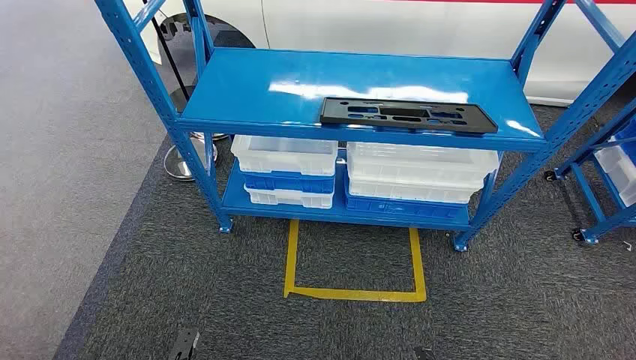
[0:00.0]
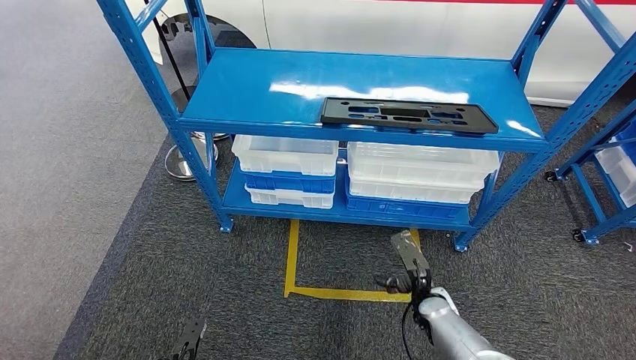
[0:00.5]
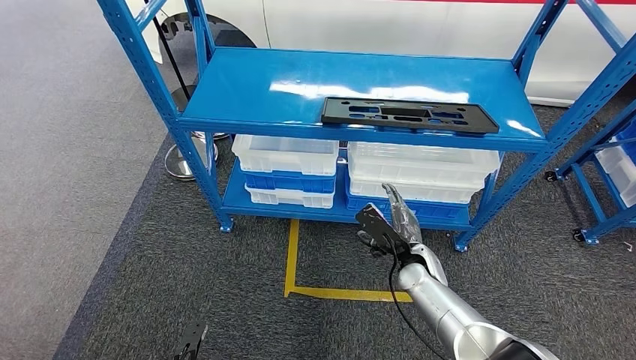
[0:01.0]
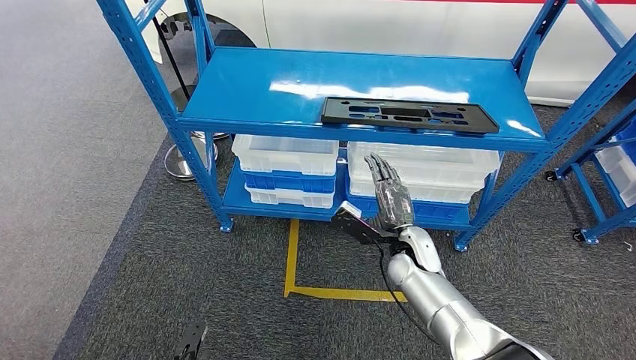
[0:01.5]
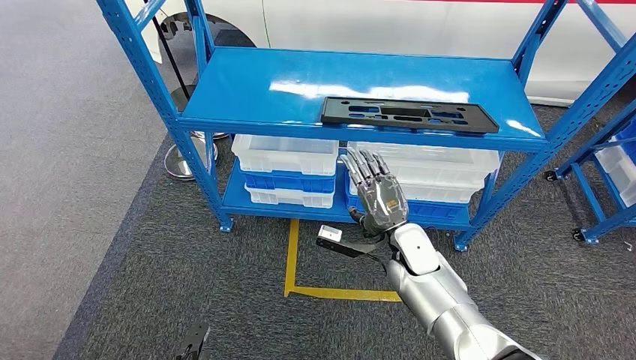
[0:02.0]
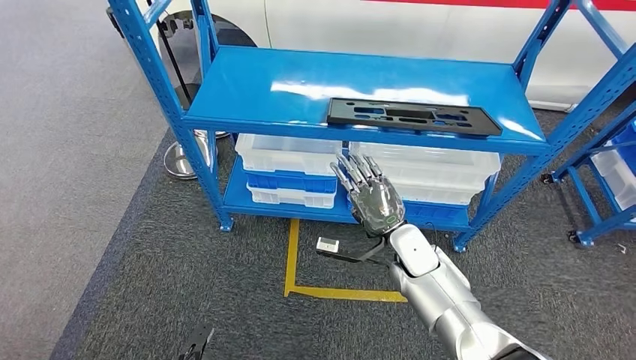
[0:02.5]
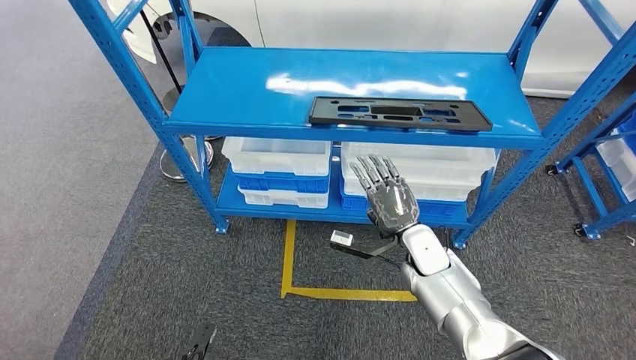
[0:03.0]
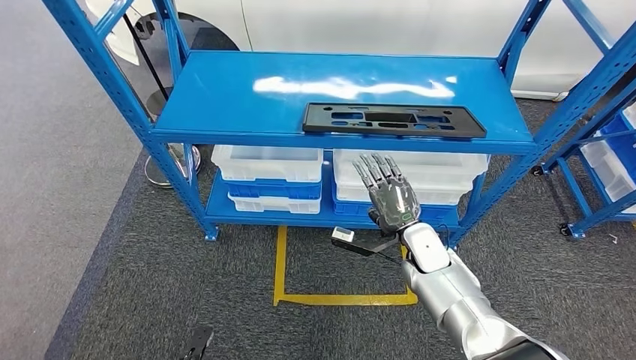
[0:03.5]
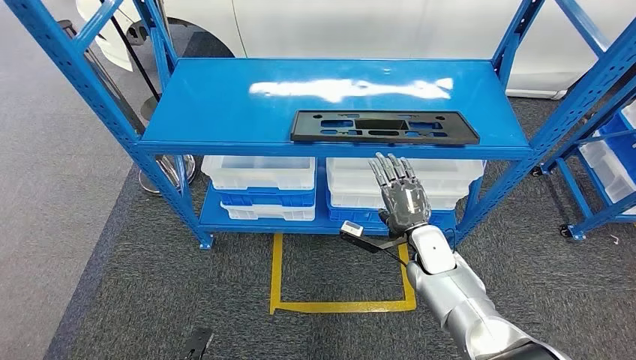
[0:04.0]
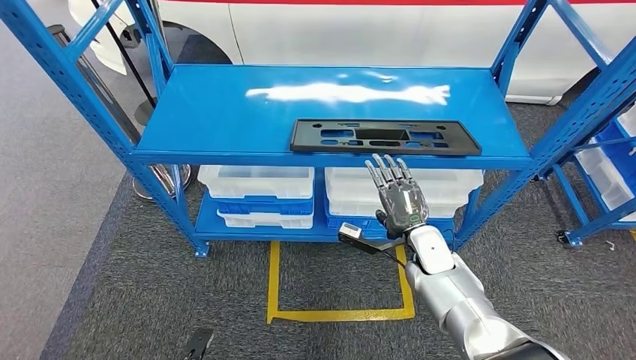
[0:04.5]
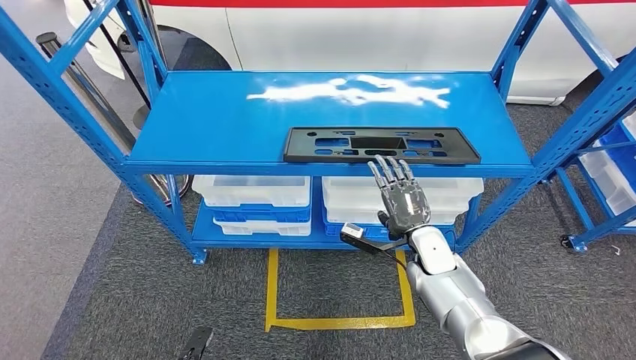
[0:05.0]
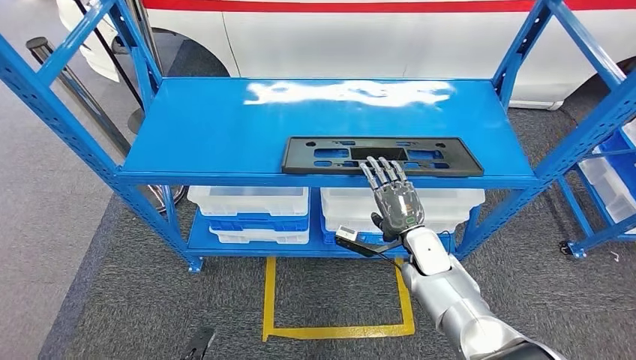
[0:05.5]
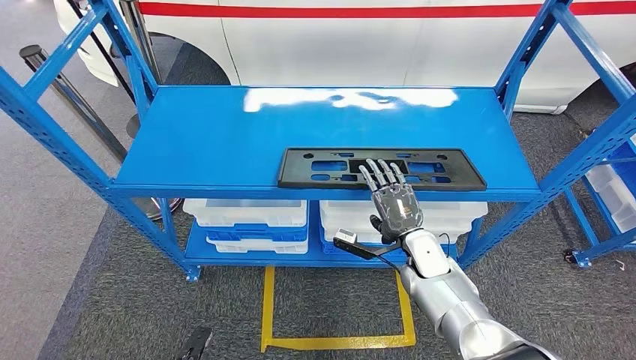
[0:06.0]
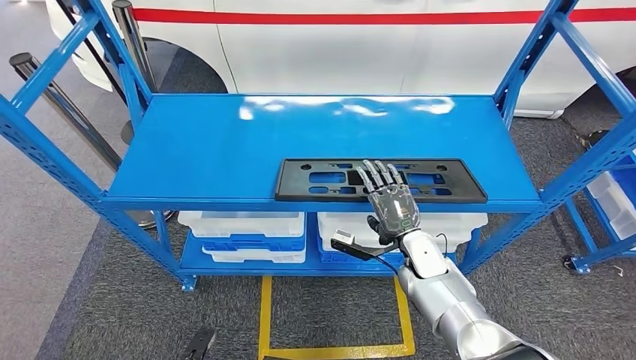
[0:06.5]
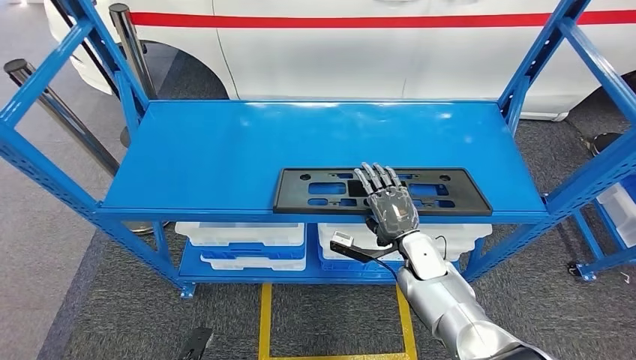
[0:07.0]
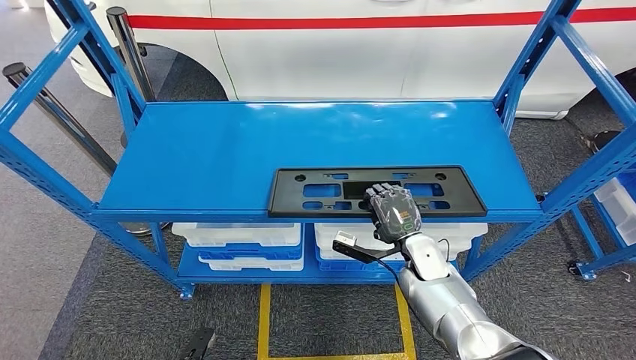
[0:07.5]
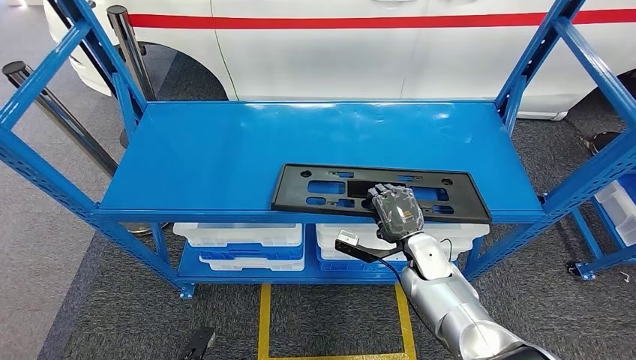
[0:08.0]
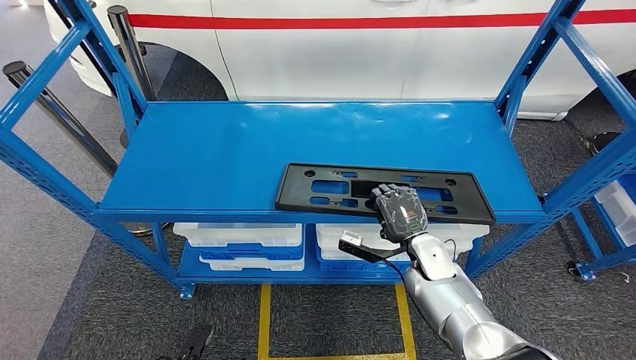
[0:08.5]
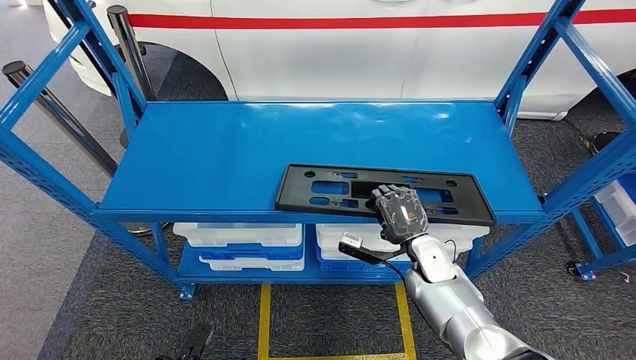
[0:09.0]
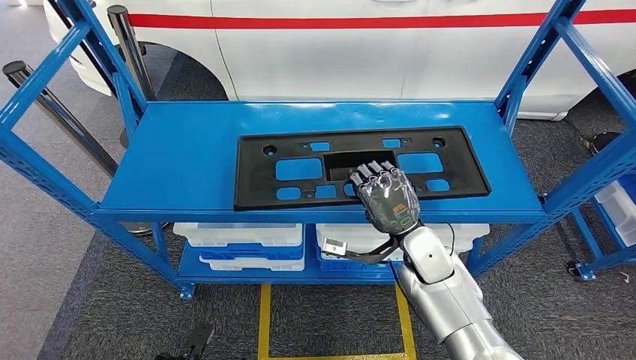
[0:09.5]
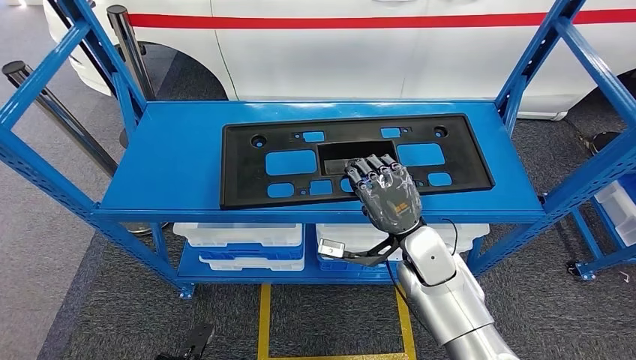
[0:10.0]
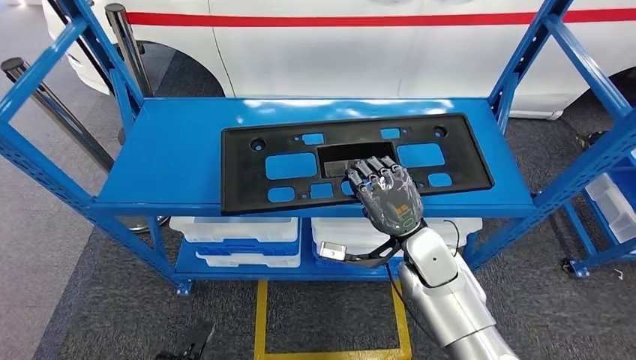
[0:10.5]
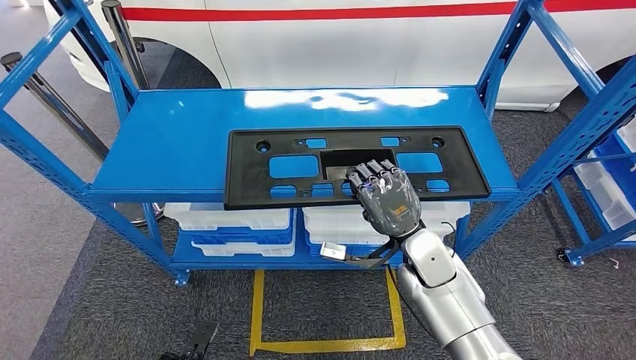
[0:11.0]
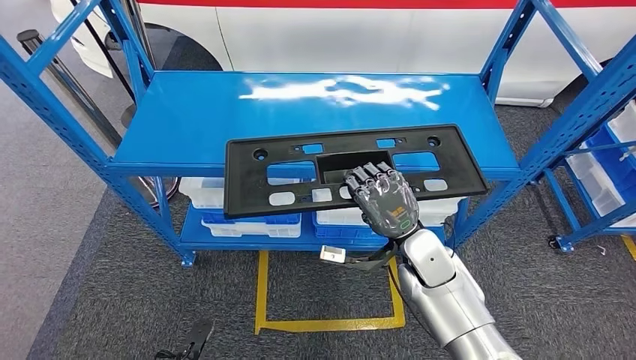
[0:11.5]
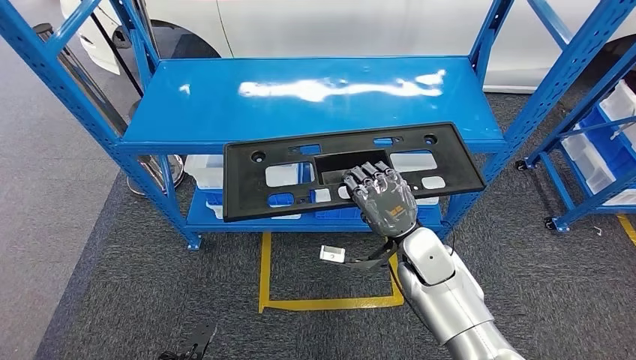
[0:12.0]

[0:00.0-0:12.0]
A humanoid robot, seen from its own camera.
Step, 0:00.0 to 0:11.0: Pick up the large material from the shelf.
0:08.0 to 0:10.0: The right hand is displaced upward by approximately 10 cm.

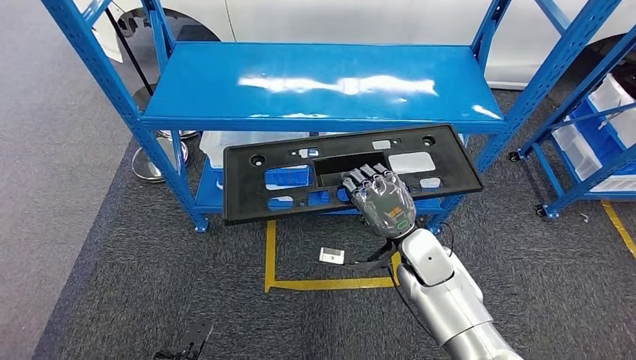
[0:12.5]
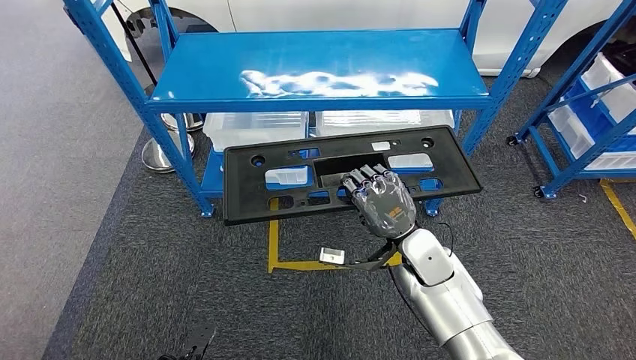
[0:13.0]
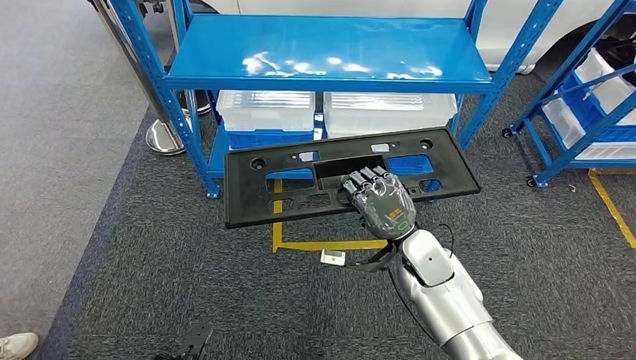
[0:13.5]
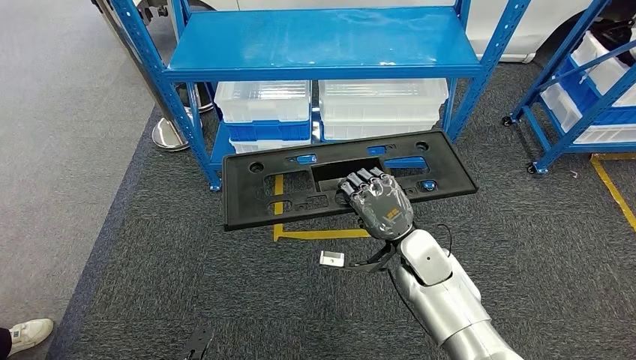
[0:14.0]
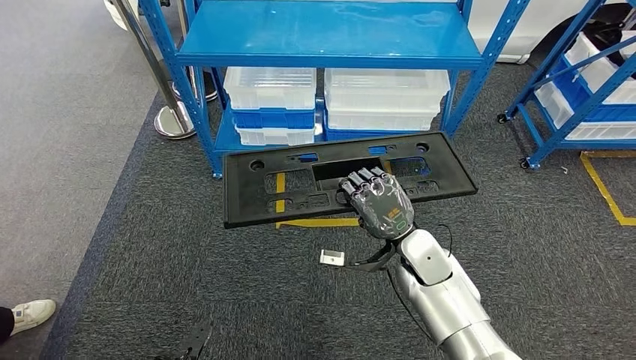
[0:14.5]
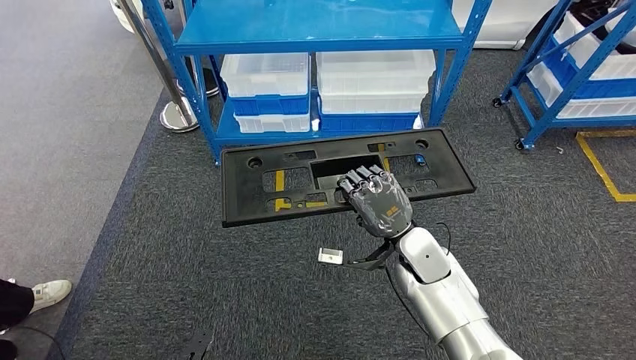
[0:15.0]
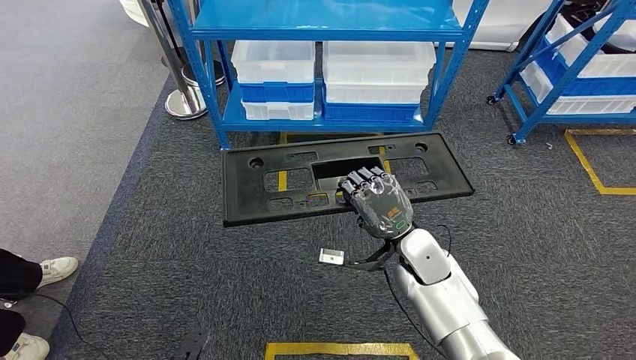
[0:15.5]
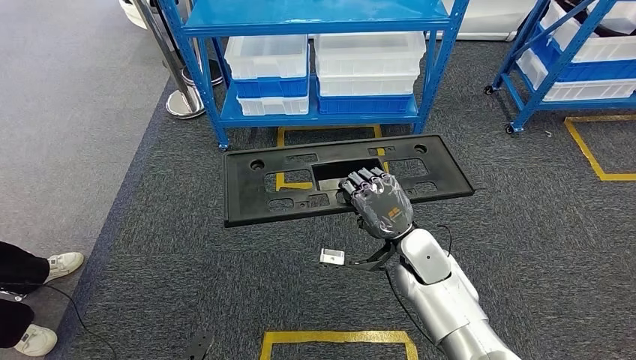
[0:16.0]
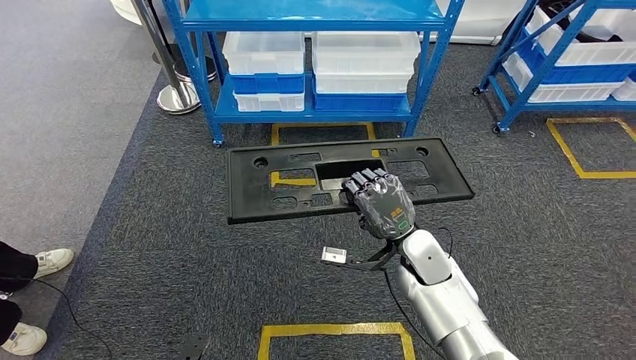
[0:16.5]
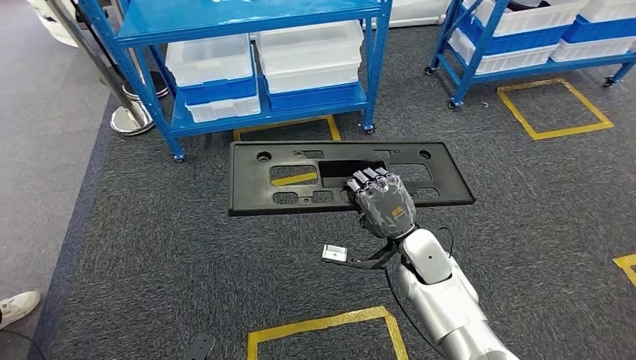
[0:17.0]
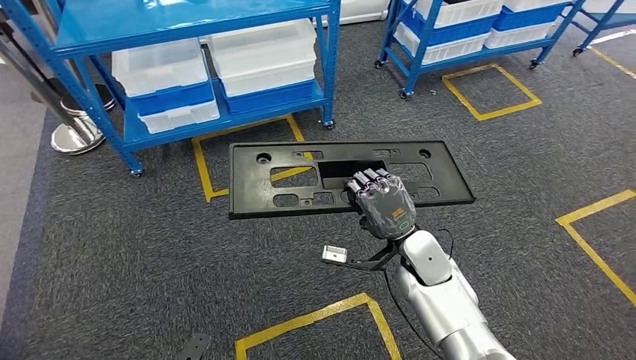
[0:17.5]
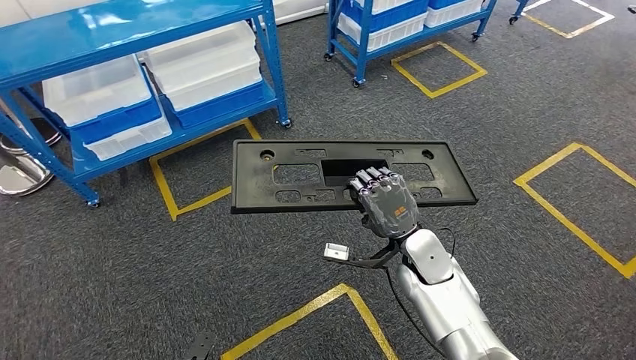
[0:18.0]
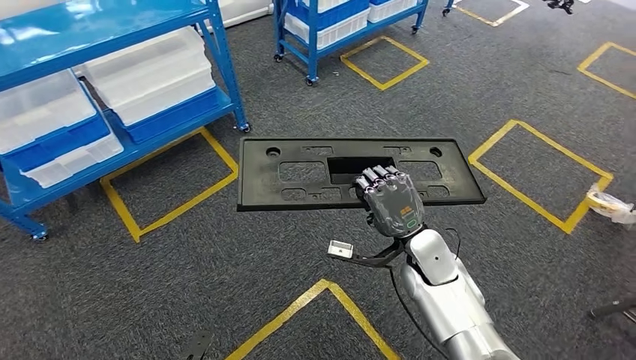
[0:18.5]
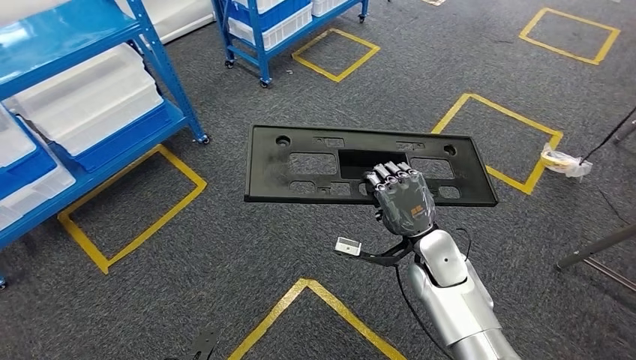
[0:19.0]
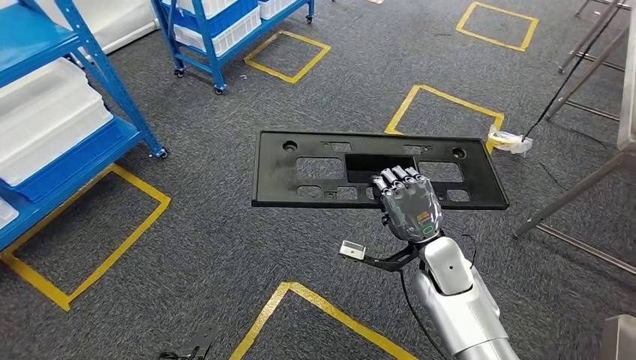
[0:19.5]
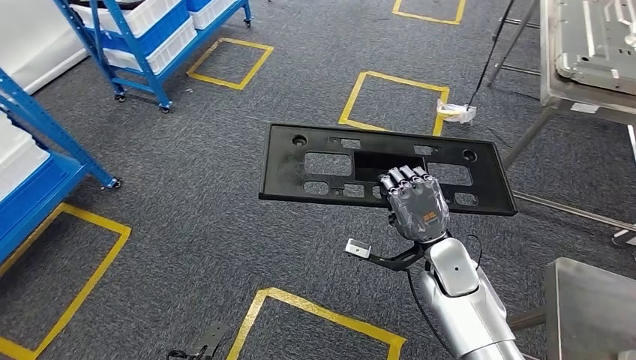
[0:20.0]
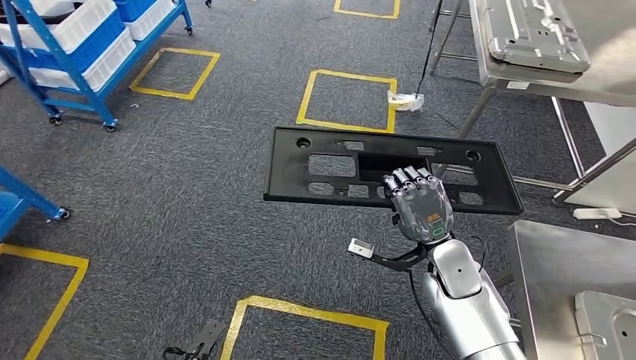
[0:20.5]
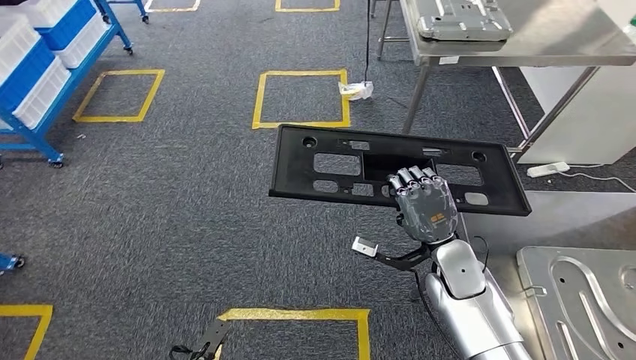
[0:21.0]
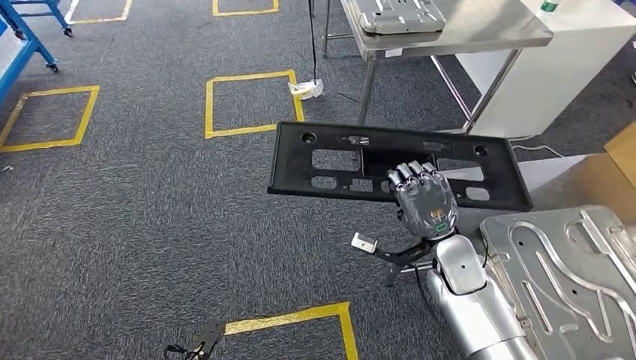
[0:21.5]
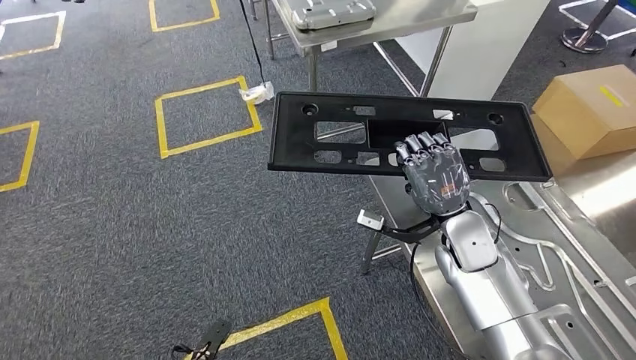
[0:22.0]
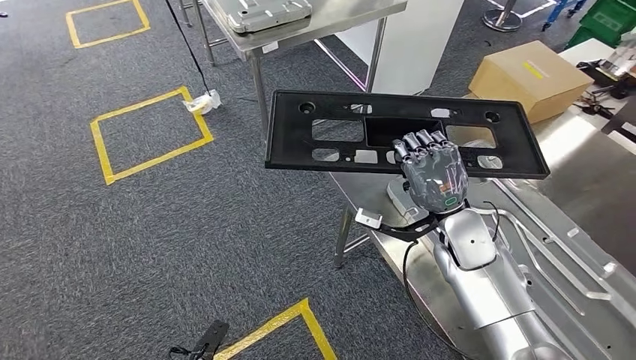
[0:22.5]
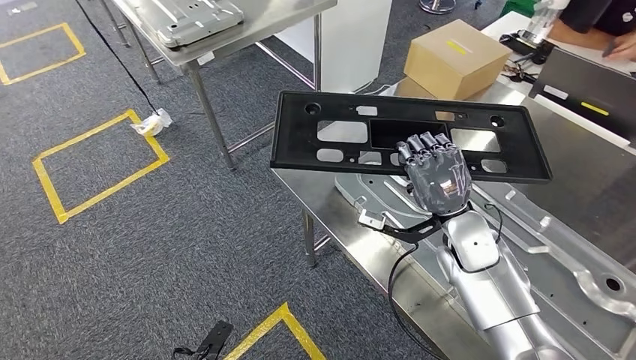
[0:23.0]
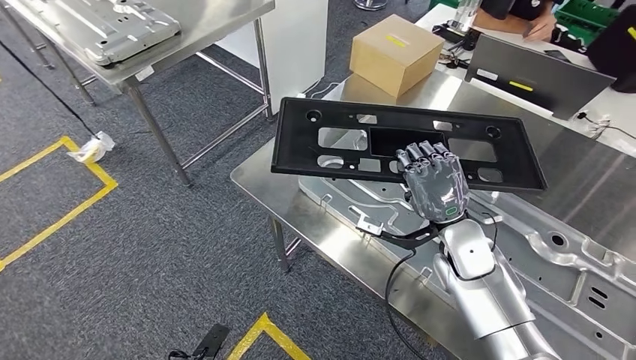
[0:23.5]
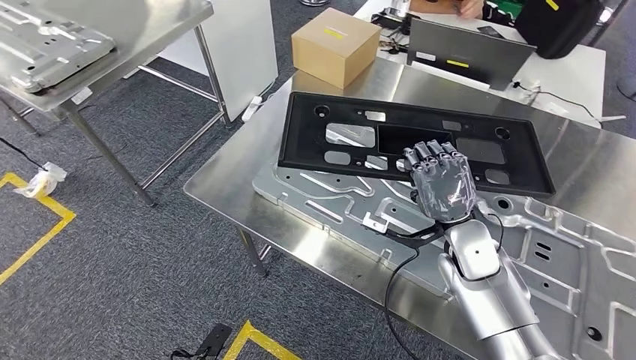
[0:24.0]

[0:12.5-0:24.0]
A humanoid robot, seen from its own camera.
Step, 0:12.5 to 0:22.0: Move the large material to the workbench.
